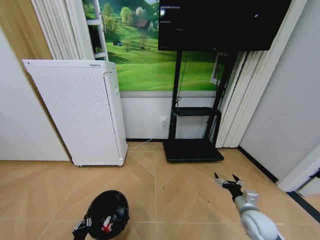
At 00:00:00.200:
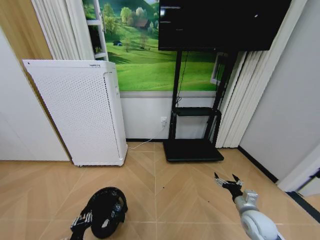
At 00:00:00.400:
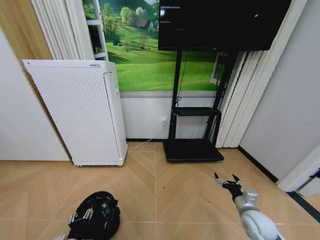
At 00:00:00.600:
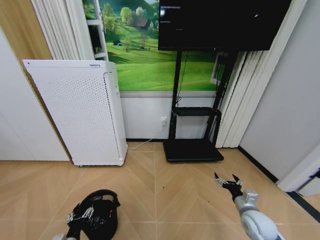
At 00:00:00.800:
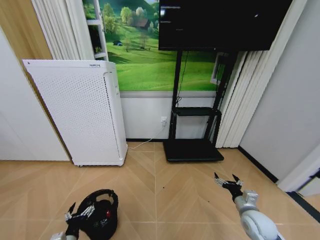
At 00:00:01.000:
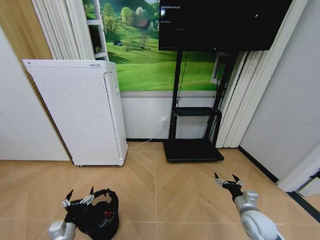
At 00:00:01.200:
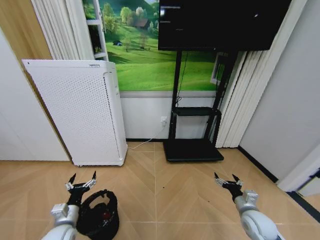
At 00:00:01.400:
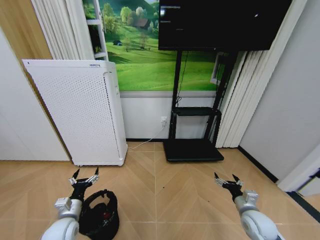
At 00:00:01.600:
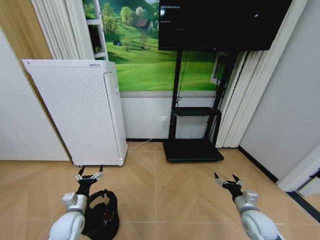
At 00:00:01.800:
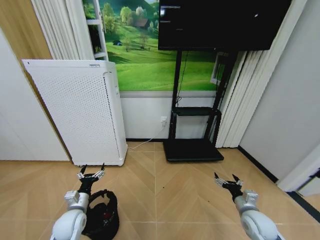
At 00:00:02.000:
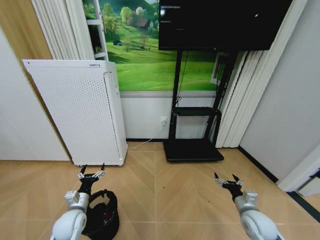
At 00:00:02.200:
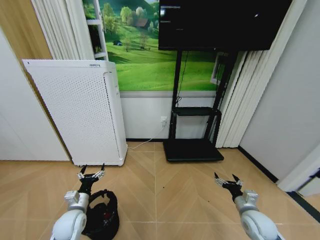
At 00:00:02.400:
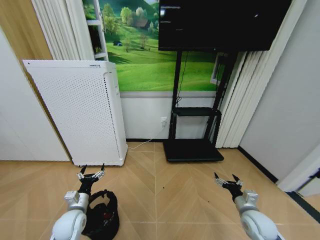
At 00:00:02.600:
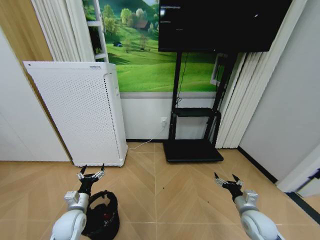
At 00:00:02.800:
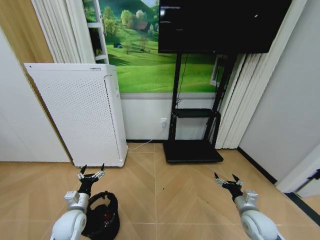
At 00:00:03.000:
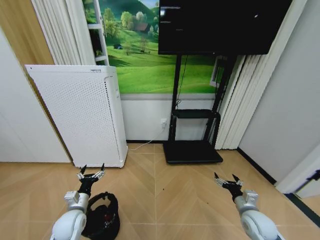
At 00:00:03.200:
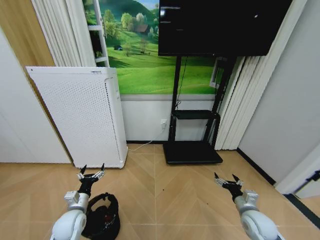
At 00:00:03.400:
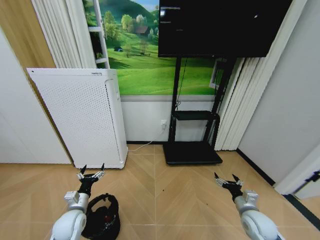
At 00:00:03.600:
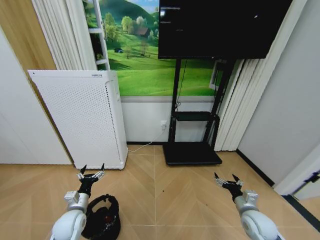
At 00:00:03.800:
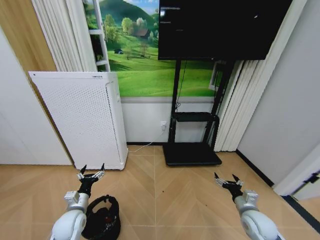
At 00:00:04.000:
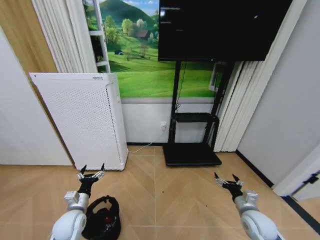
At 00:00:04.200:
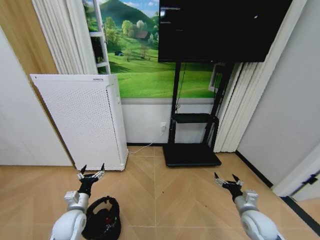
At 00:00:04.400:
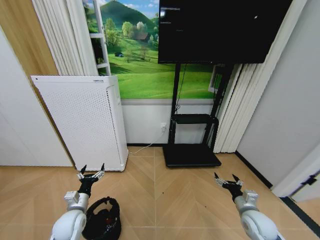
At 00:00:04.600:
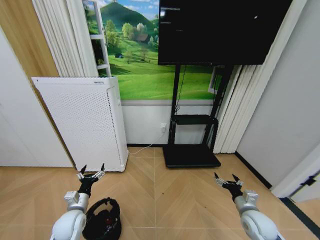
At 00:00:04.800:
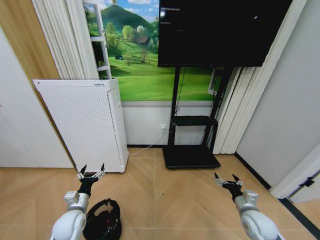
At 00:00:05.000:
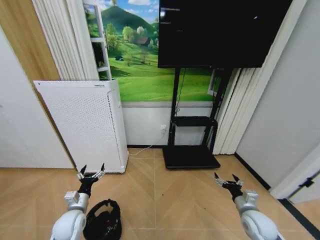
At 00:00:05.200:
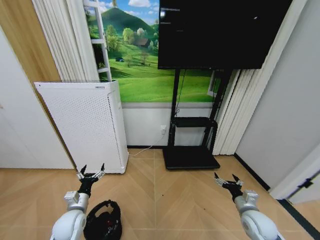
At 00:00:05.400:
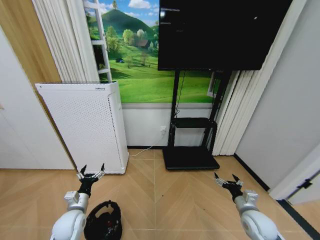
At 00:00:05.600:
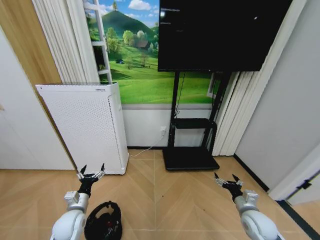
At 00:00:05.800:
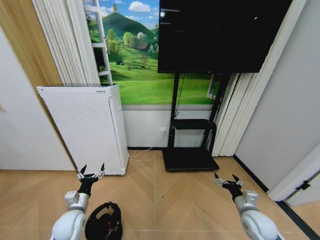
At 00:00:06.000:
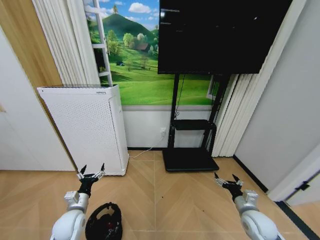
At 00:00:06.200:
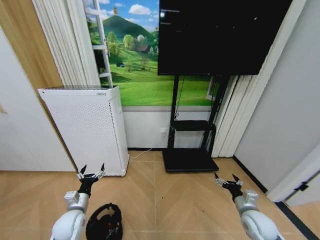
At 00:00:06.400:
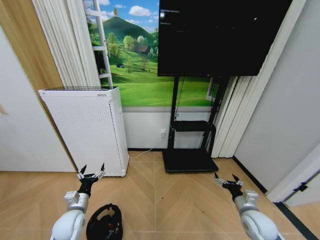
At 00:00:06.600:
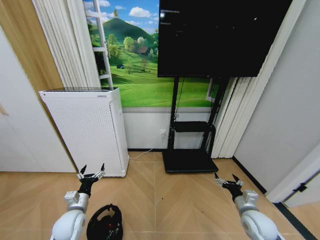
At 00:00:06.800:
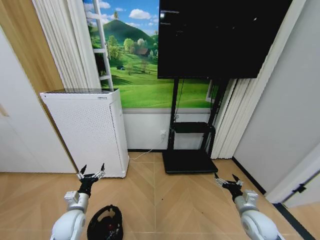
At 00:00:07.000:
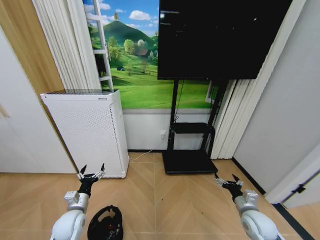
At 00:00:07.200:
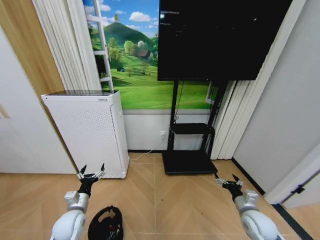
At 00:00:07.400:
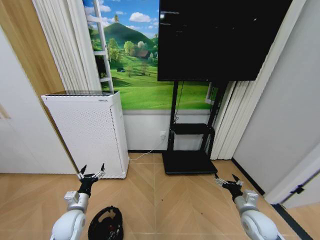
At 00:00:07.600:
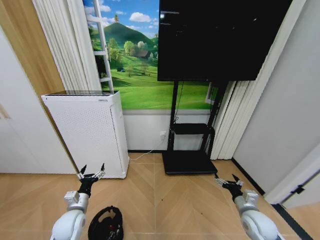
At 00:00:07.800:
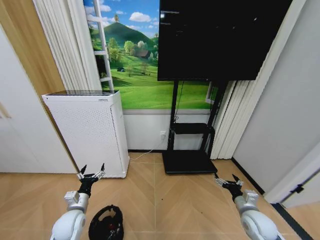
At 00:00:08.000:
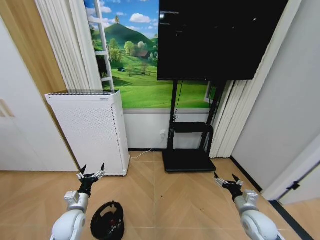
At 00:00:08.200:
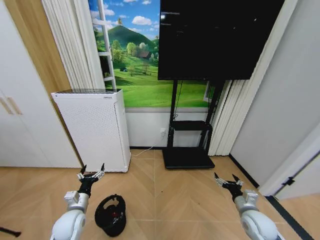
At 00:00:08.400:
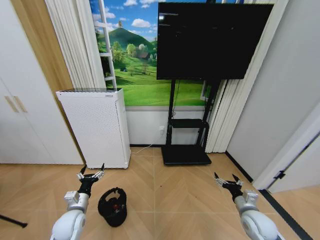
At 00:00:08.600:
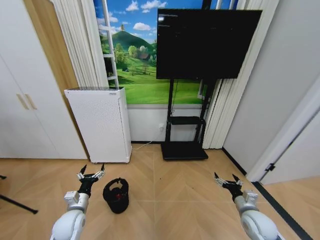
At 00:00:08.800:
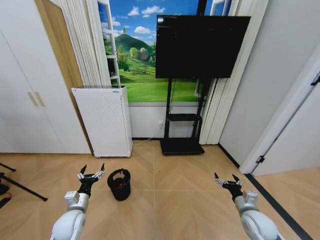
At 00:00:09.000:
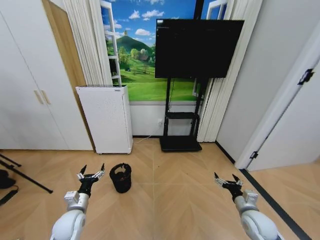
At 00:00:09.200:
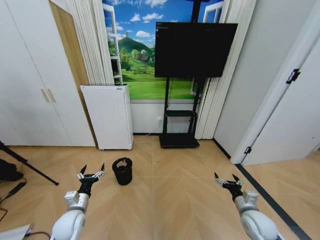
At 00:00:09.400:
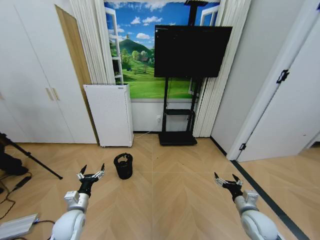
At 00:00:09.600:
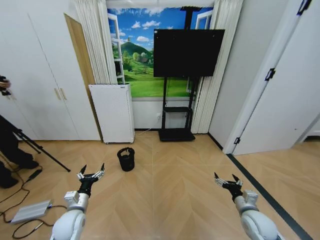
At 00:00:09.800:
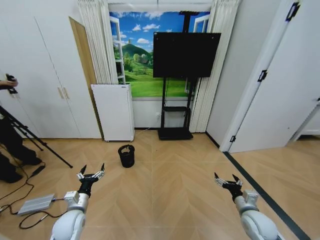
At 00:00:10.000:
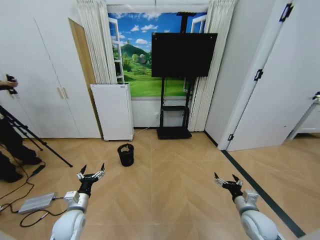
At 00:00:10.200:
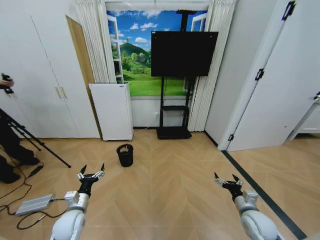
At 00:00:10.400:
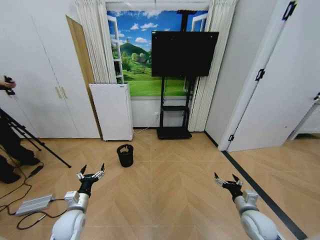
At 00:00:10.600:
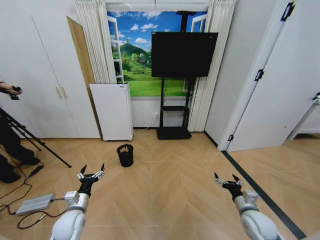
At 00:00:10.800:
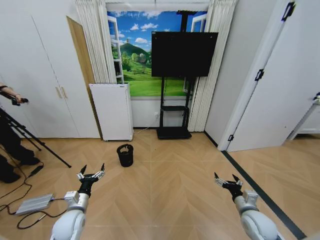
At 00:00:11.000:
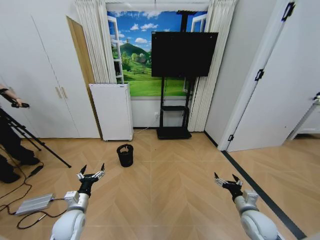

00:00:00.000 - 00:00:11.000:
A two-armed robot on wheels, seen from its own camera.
Task of the whole recording: Pick up the trash bin and place the garbage on the floor into it.
00:00:00.000 - 00:00:01.600: The left gripper moves forward and upward, about 15 cm, and opens.
00:00:01.600 - 00:00:07.800: Both grippers stay put.
